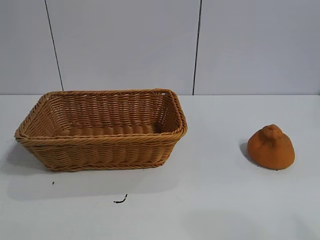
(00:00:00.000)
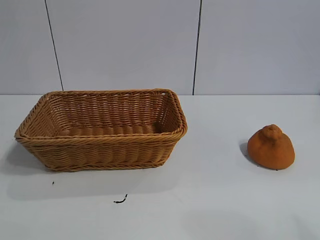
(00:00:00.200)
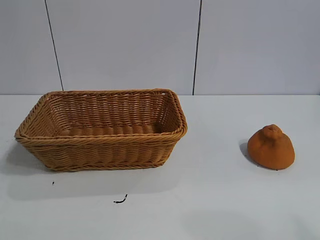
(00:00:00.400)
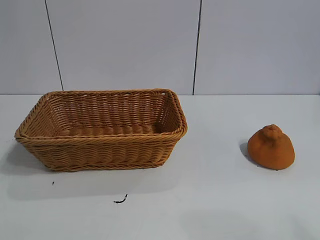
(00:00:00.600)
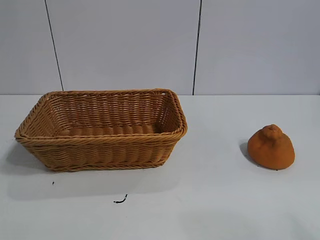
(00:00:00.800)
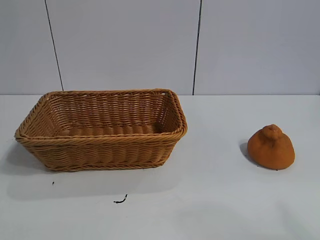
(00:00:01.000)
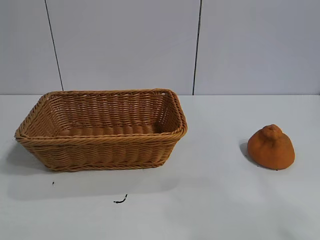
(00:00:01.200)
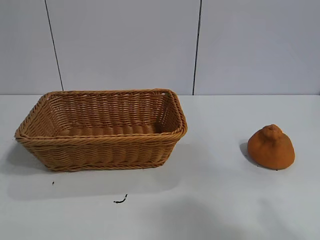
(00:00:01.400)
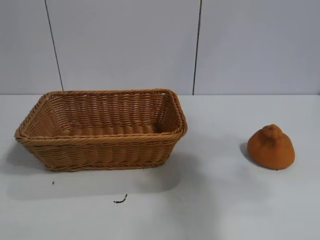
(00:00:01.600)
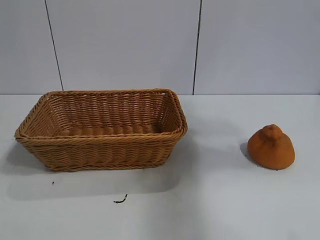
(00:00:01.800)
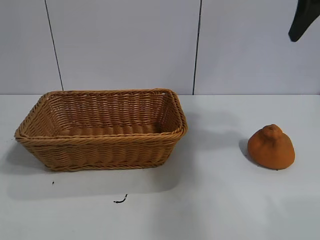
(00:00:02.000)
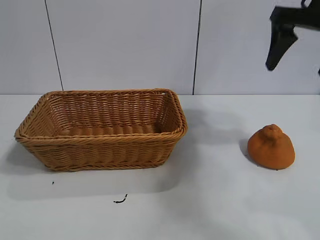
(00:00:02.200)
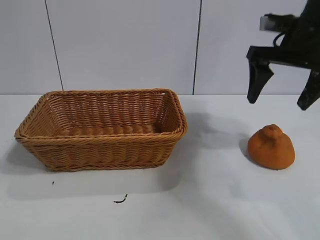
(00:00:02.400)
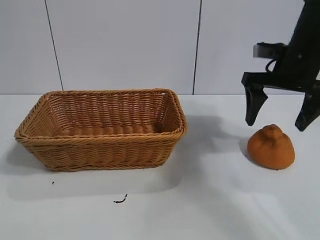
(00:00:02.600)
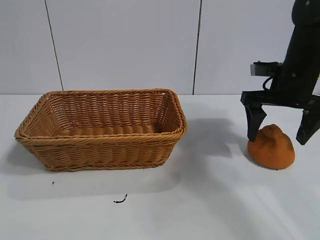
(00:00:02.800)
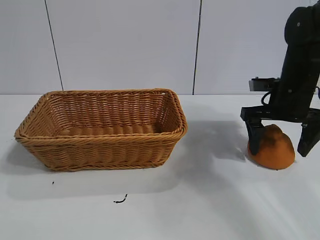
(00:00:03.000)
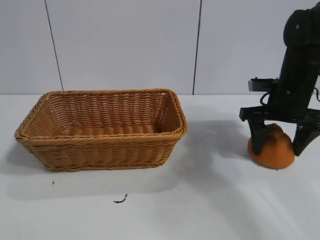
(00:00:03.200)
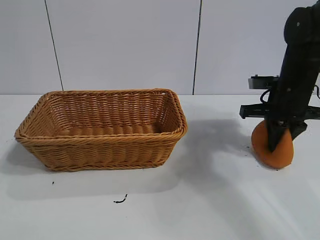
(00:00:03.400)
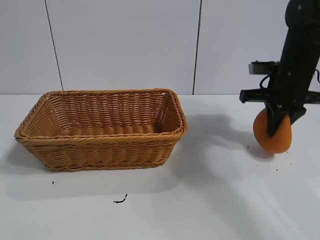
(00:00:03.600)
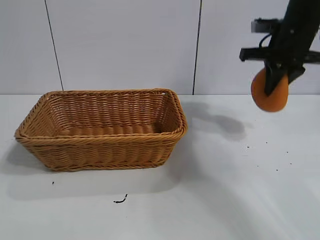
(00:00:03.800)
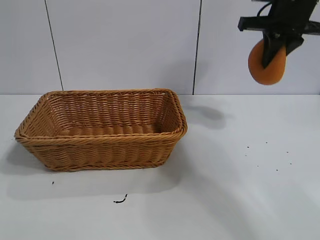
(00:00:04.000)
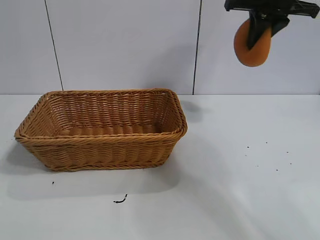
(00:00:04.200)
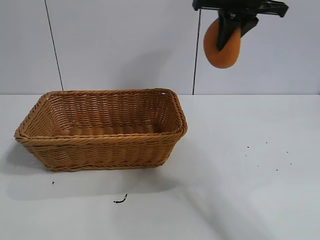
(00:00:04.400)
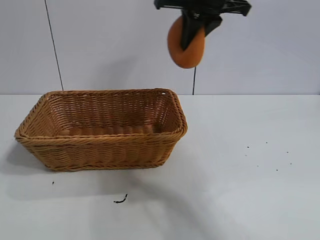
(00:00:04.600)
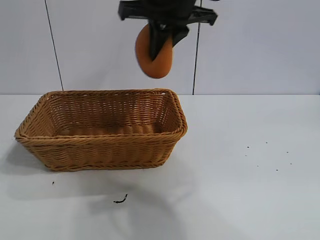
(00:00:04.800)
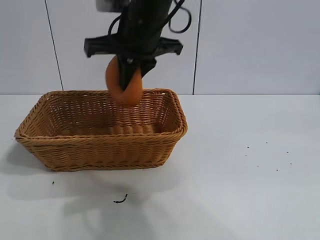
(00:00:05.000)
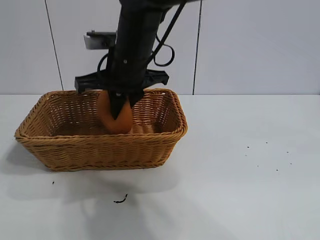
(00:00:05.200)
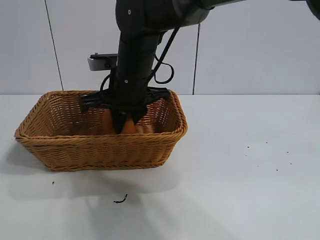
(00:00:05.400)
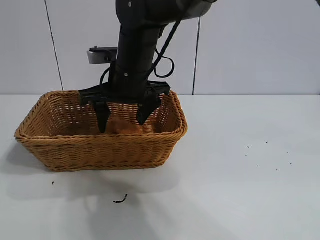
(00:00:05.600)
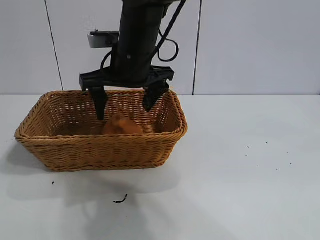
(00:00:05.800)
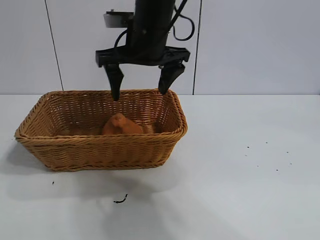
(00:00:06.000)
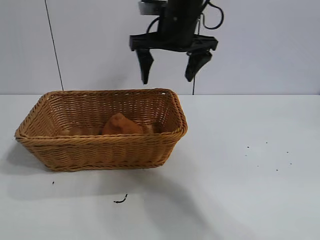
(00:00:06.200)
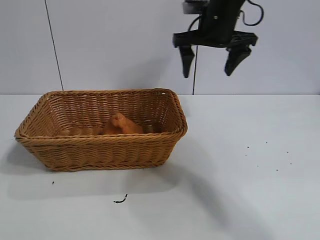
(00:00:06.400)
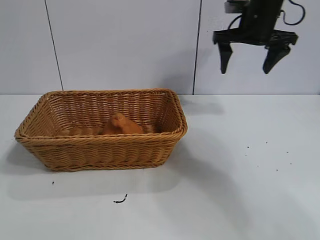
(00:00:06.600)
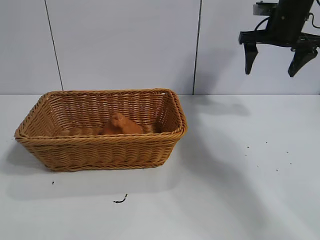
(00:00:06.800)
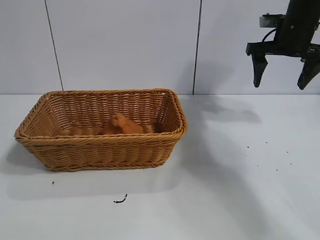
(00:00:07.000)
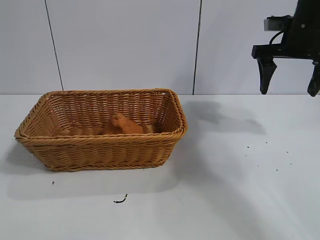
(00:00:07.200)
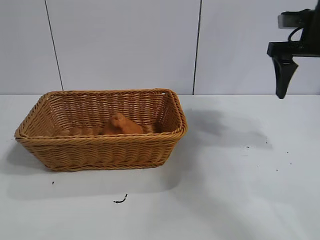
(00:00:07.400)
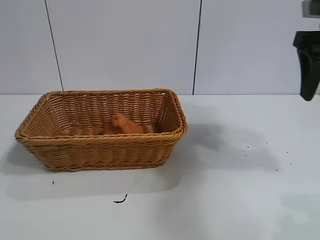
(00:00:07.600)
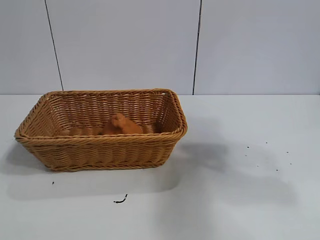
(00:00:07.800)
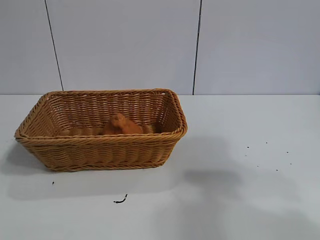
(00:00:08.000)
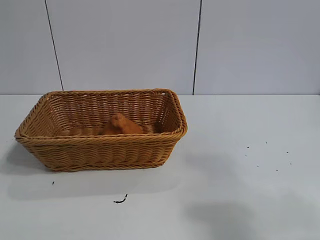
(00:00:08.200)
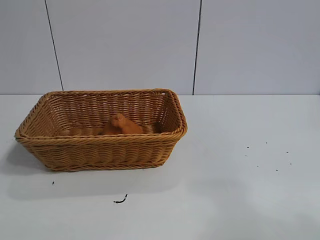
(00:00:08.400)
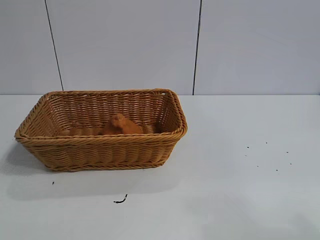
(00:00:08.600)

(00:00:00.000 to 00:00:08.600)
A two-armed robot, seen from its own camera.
Task of the whole recording: pick up the orange and put it into the basket.
Step, 00:00:00.600 - 00:00:03.400: Grasp the orange with right gripper.
Step, 00:00:03.600 - 00:00:05.600: Place the orange in the basket with right gripper.
